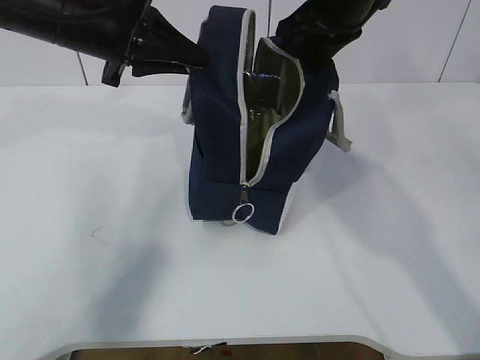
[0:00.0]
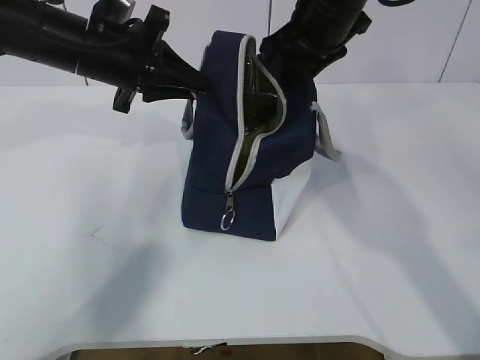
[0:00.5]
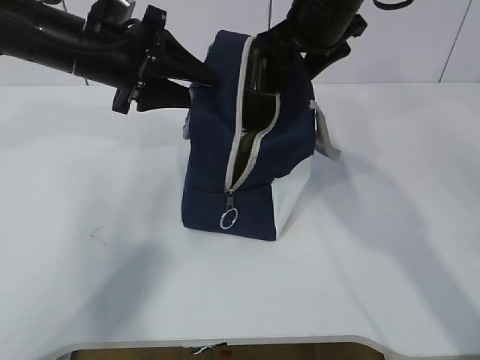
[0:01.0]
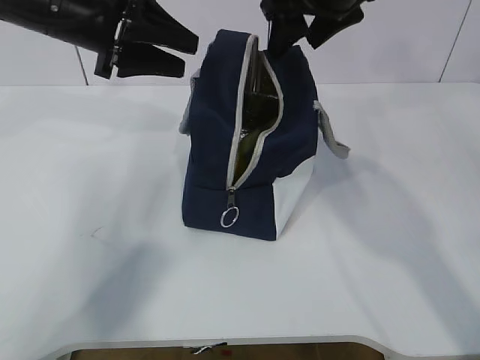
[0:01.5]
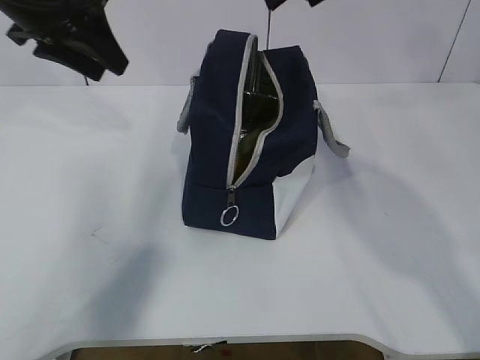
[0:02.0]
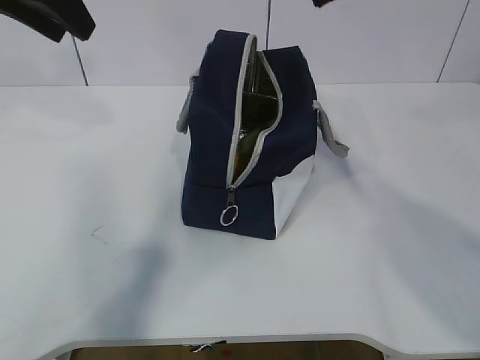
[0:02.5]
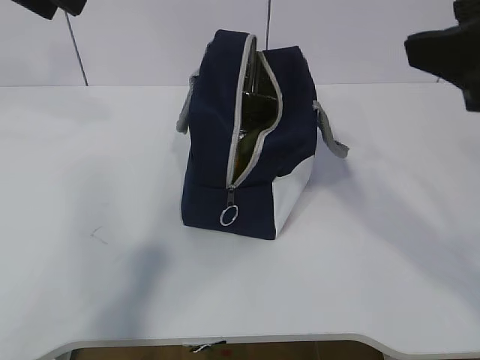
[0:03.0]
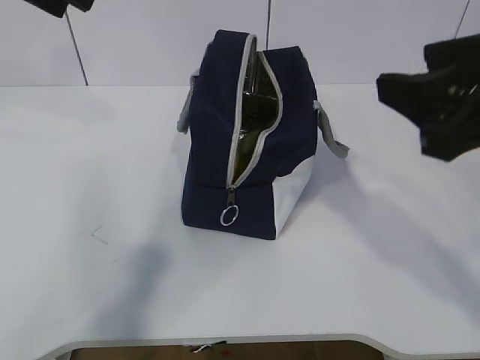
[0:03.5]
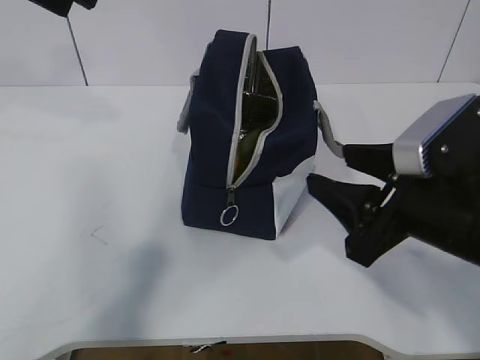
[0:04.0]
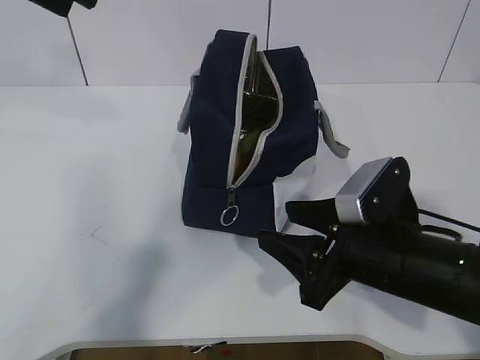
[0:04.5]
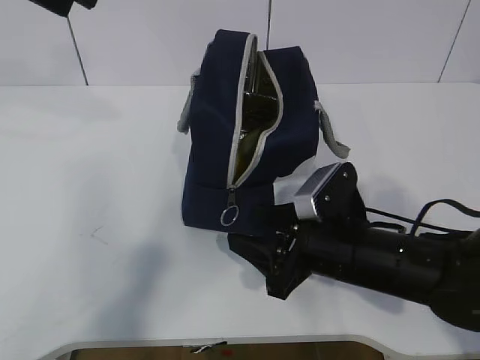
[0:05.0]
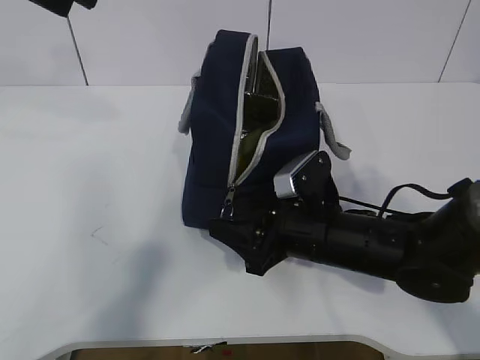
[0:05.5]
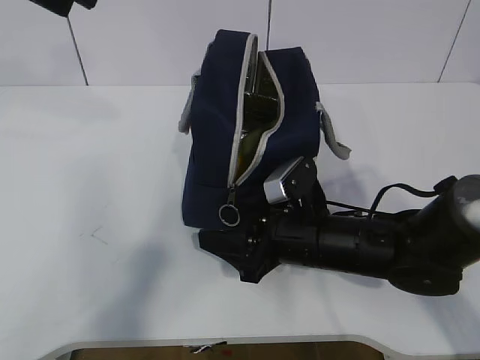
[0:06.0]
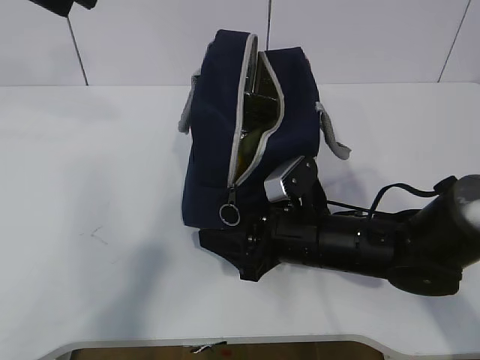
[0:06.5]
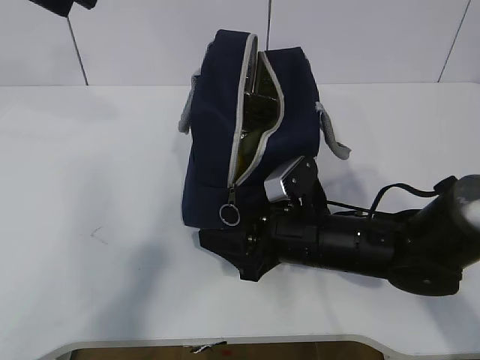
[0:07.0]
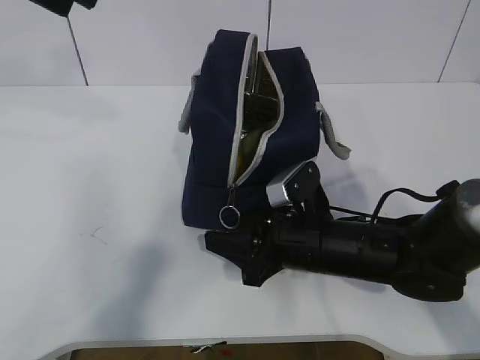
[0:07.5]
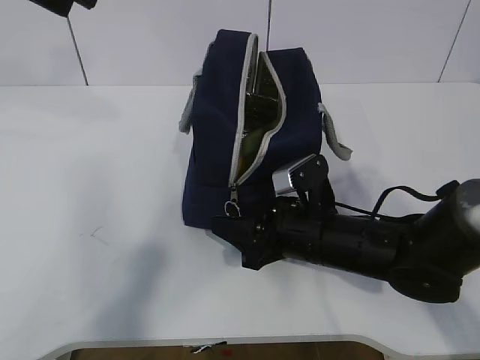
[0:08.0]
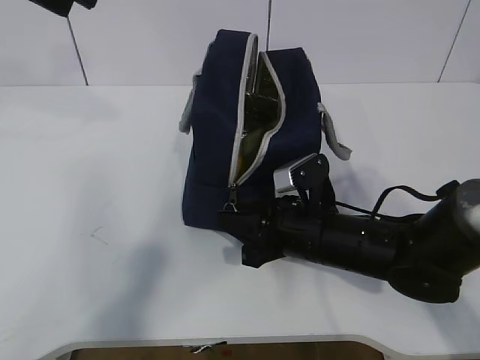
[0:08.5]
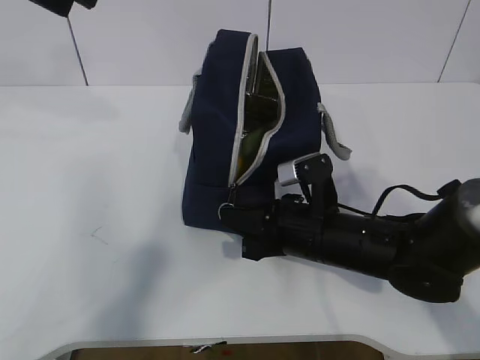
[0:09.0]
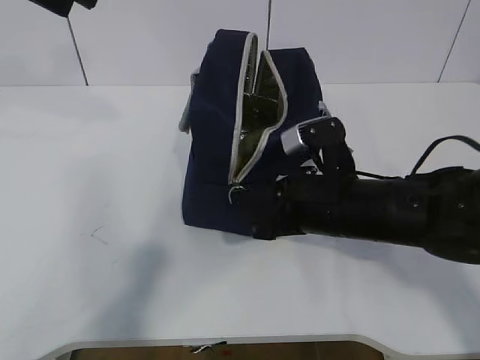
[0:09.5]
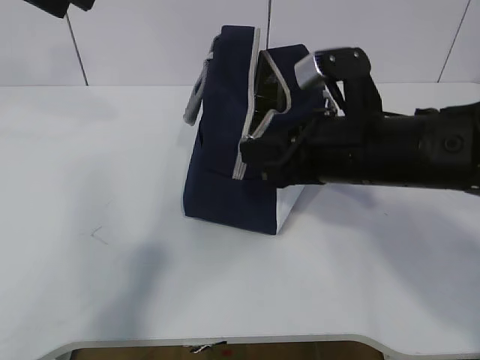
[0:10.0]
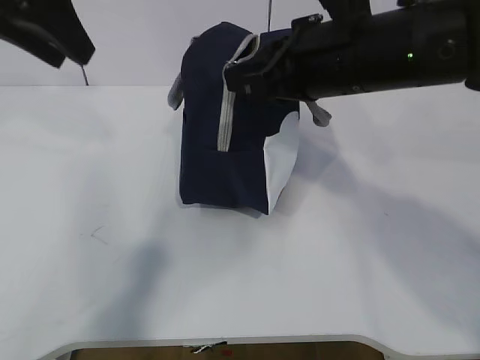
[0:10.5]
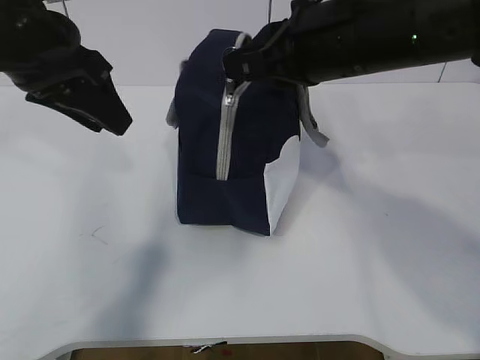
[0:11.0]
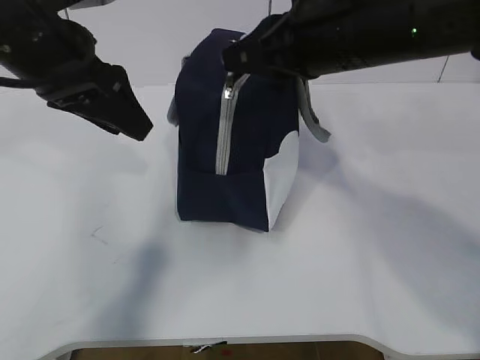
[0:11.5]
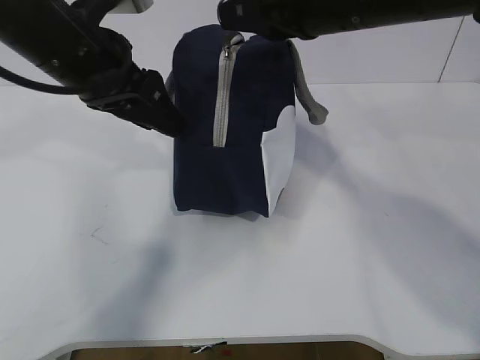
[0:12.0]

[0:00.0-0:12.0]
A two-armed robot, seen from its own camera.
0:00.0 to 0:02.0: The left gripper goes roughly 5 cm to the left, and opens up, while the right gripper shifts roughly 5 cm upward, and opens.
0:02.0 to 0:04.0: The left gripper moves upward and backward, roughly 10 cm. The right gripper heads downward and backward, covering some 25 cm.
0:04.0 to 0:06.0: The right gripper goes approximately 15 cm downward, forward and to the left.
0:06.0 to 0:08.0: There are only small adjustments of the grippers.
0:08.0 to 0:10.0: The right gripper moves upward, approximately 15 cm, and closes up.
0:10.0 to 0:12.0: The right gripper heads upward, covering about 10 cm, while the left gripper goes about 15 cm downward and to the right.

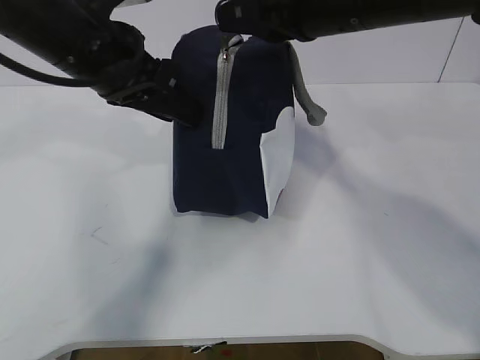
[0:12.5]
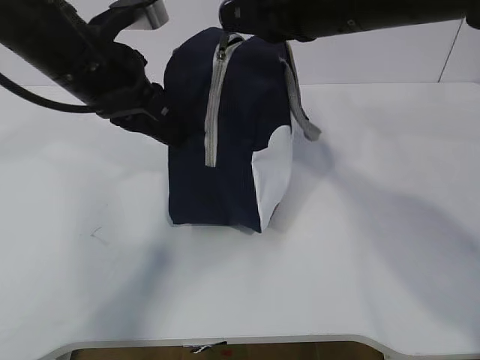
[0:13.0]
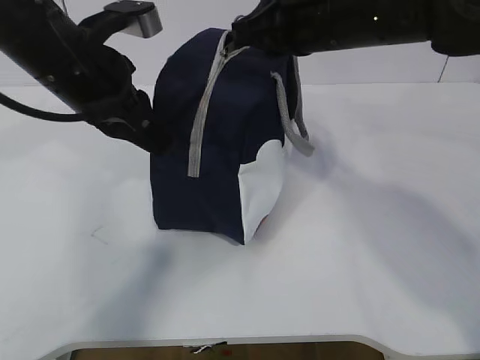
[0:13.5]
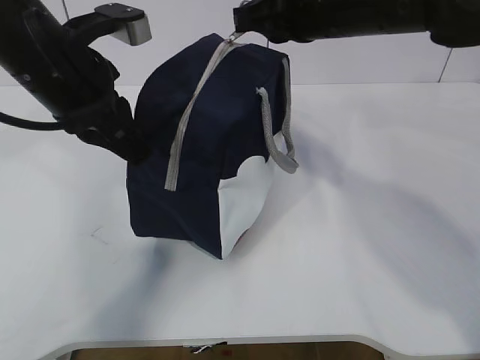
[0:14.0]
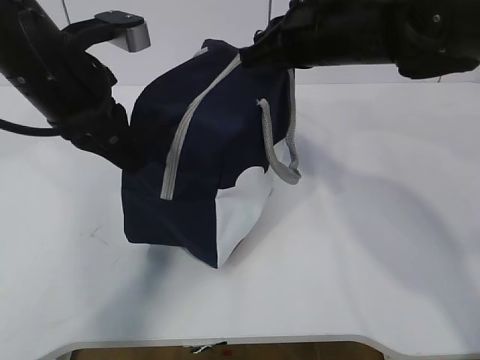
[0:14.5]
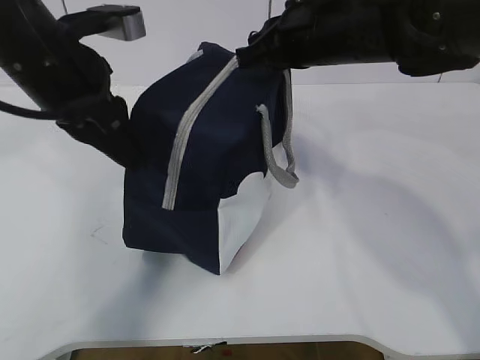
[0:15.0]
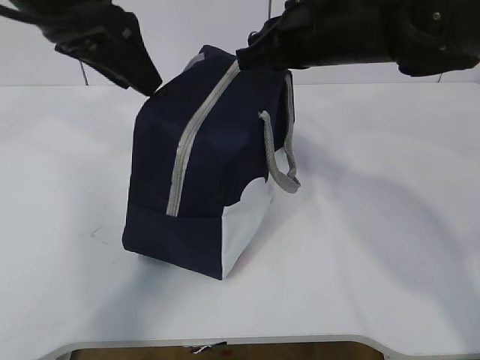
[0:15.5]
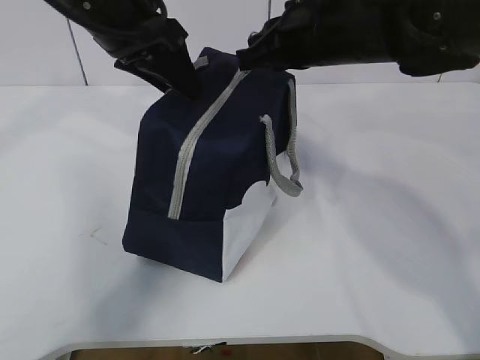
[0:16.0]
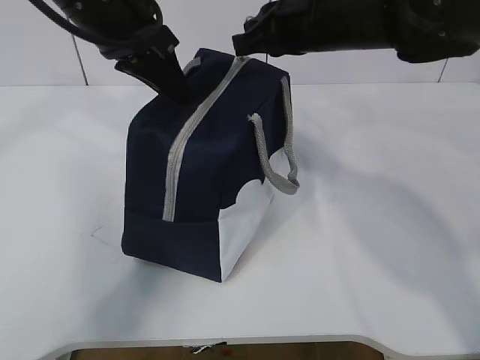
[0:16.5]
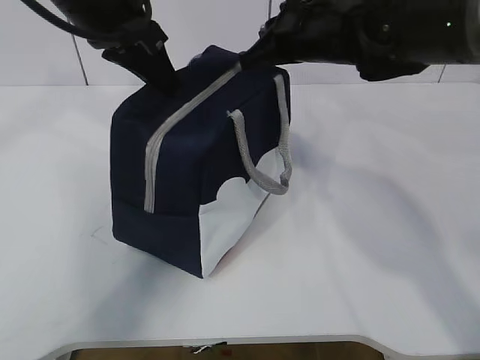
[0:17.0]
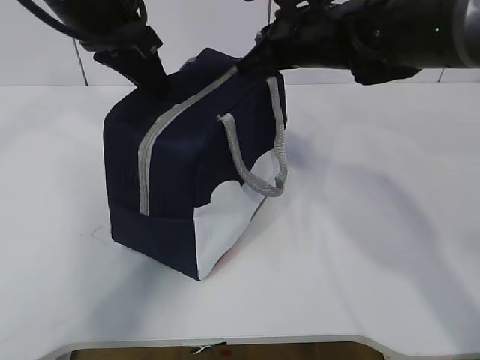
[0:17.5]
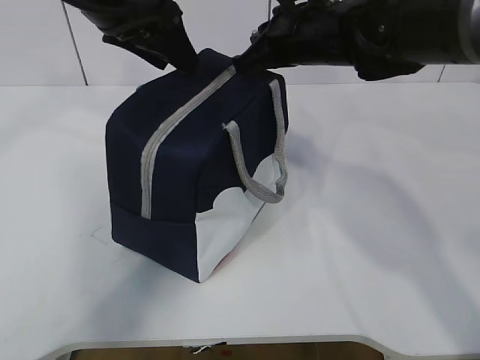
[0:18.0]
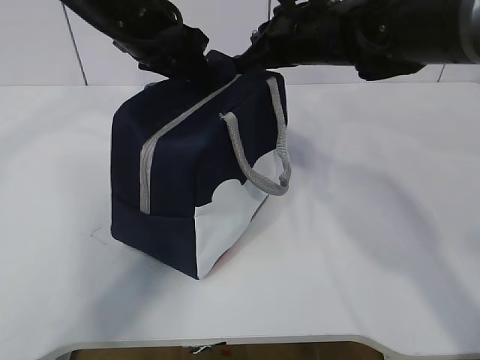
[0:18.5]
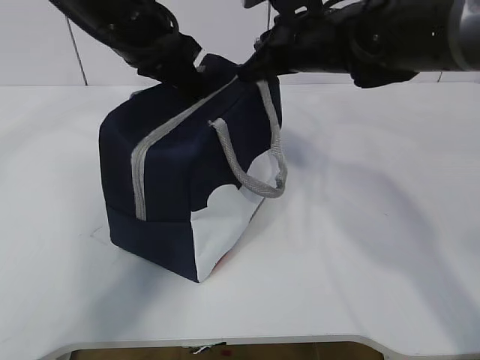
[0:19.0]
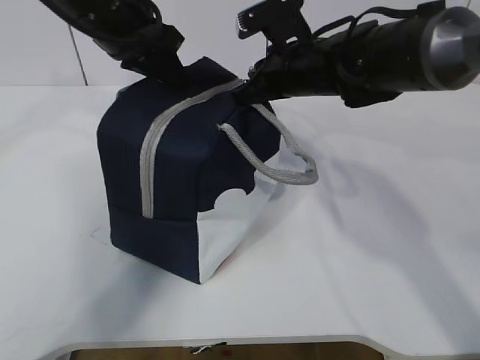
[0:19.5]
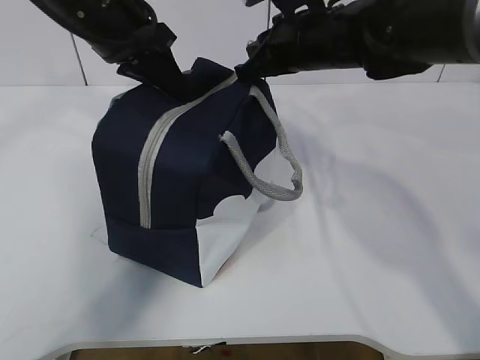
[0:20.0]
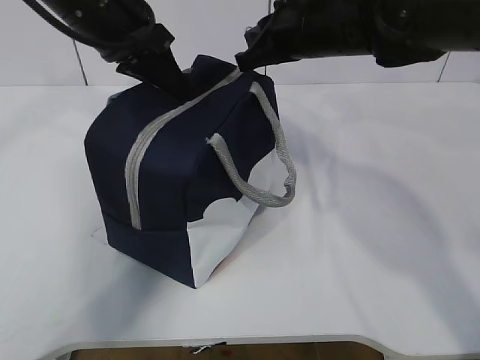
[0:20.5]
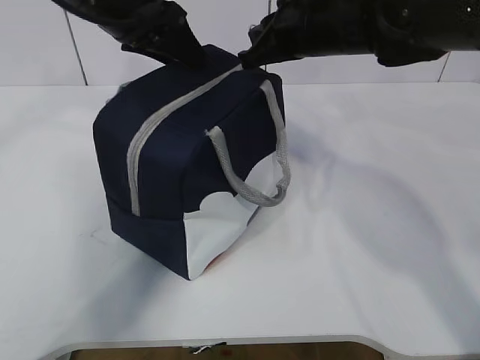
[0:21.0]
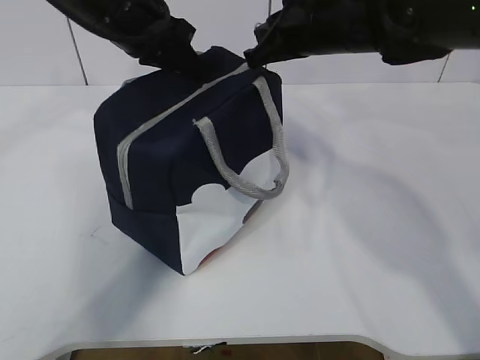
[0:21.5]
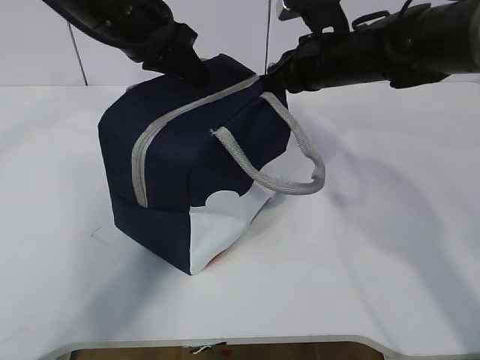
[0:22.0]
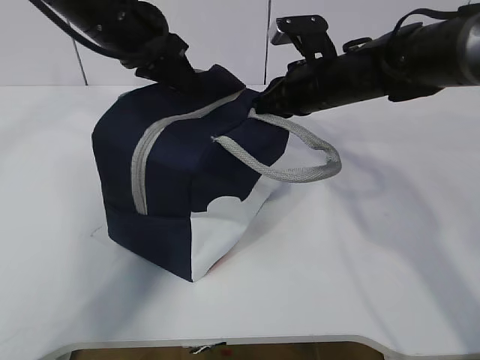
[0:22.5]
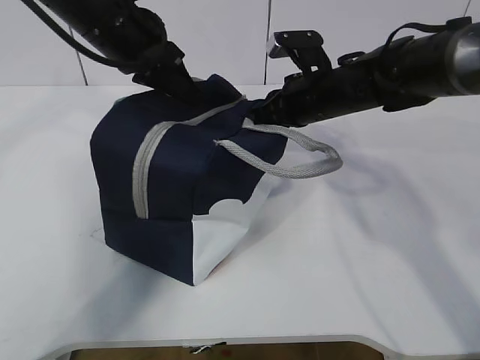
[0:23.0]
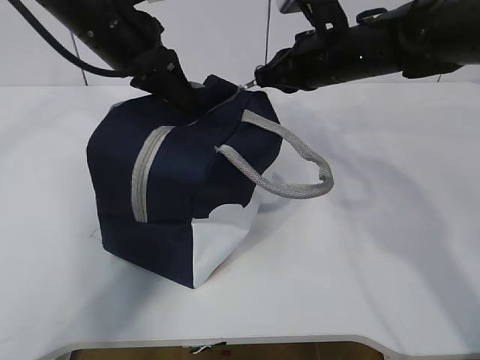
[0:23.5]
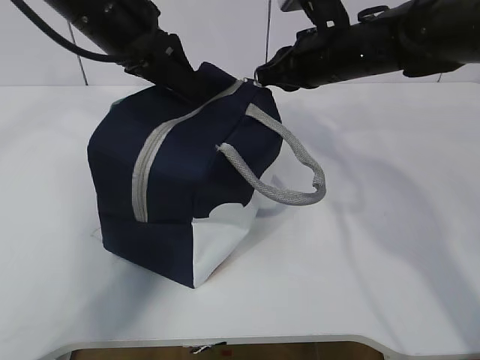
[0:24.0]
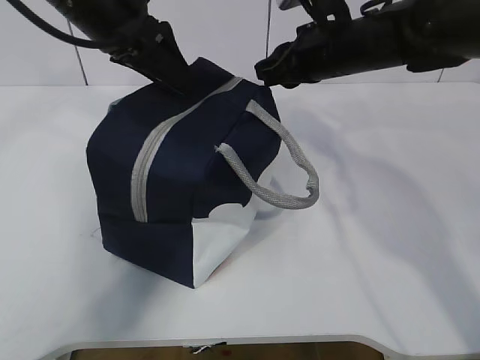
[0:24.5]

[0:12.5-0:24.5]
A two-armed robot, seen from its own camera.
0:12.5 to 0:14.5: The right gripper goes roughly 10 cm forward and downward. The left gripper closes its fingers.
0:14.5 to 0:16.5: The left gripper travels forward by about 5 cm, and opens, then closes again.
0:16.5 to 0:18.5: The left gripper opens up.
0:18.5 to 0:20.5: The left gripper closes its fingers.
0:20.5 to 0:22.5: The left gripper opens and closes again; the right gripper moves downward, some 5 cm.
0:22.5 to 0:24.5: The left gripper opens up.

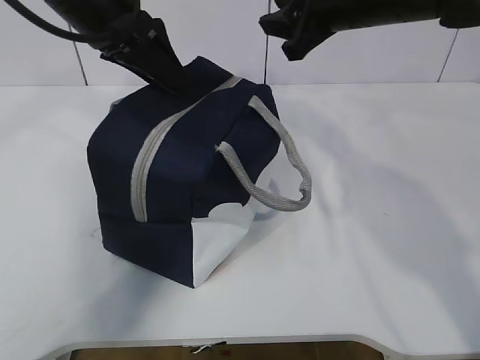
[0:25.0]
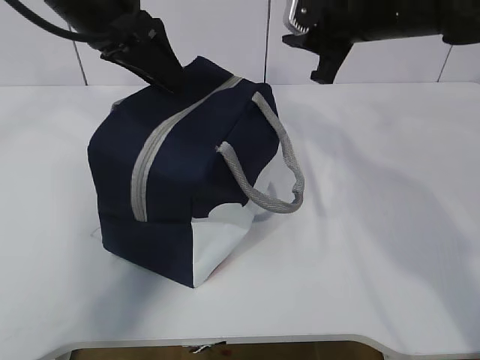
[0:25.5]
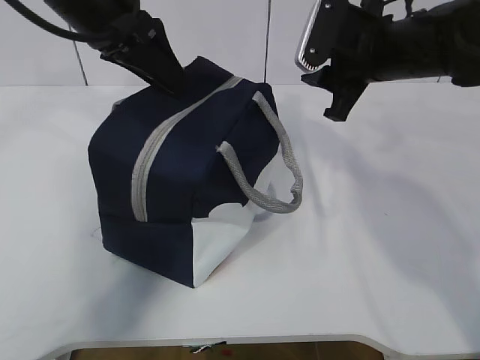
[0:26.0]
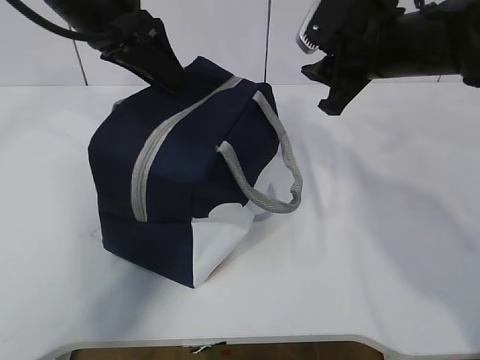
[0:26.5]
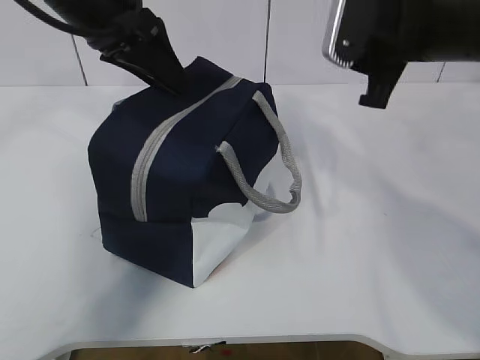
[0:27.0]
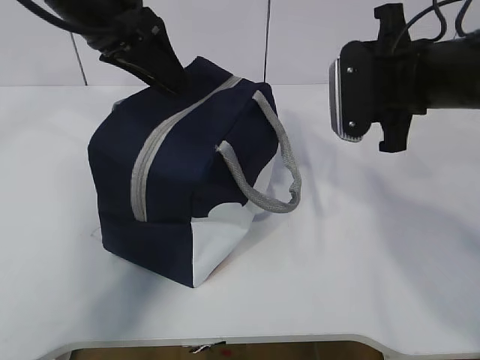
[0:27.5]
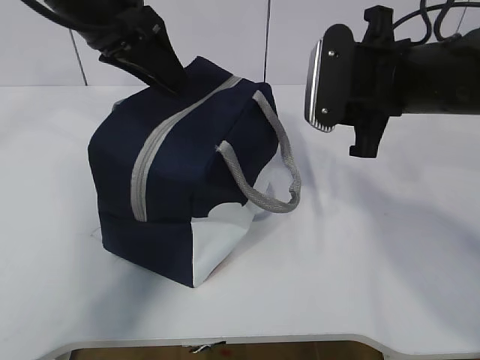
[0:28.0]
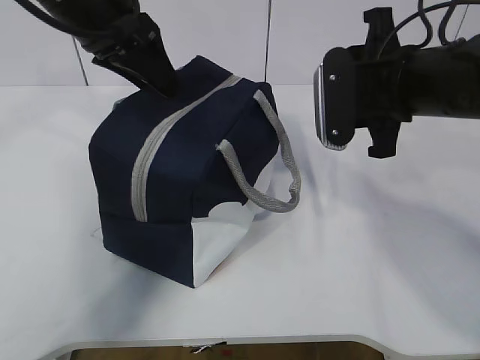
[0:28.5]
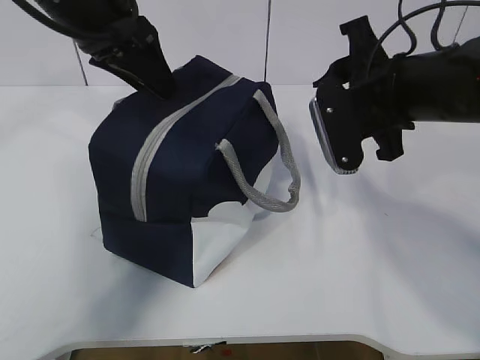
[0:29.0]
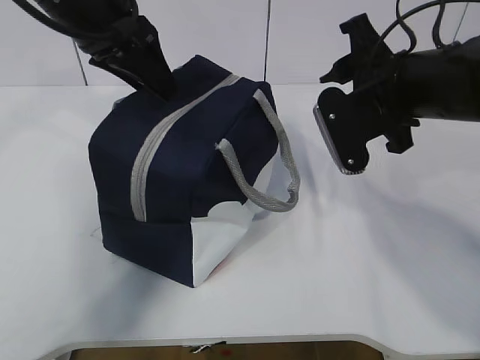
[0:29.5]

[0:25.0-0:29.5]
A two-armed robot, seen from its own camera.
0:25.0 to 0:27.0: The right gripper travels backward by some 5 cm.
0:27.0 to 0:29.5: The right gripper ends up approximately 5 cm from where it was.
